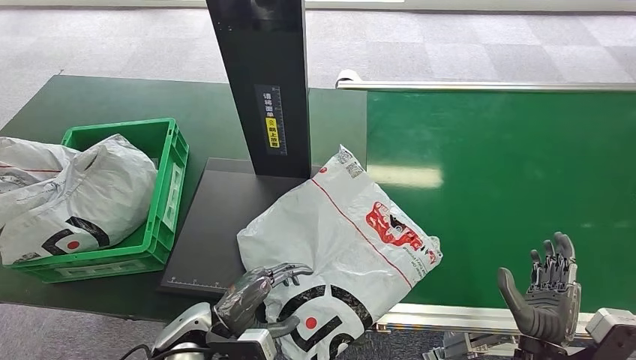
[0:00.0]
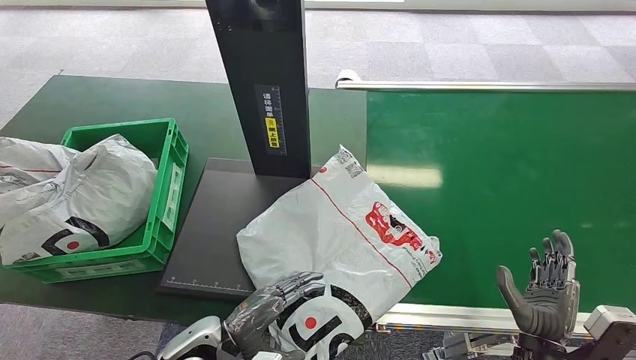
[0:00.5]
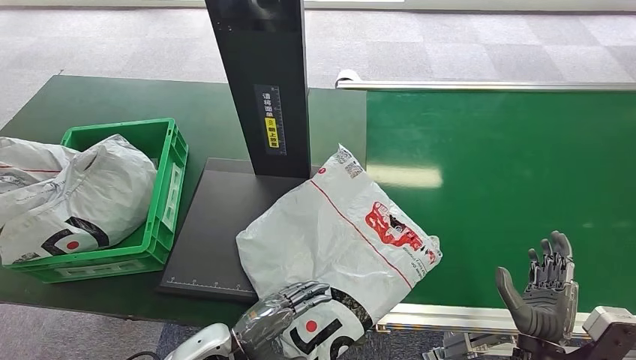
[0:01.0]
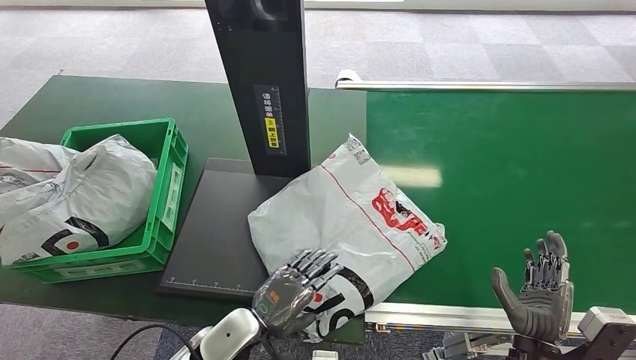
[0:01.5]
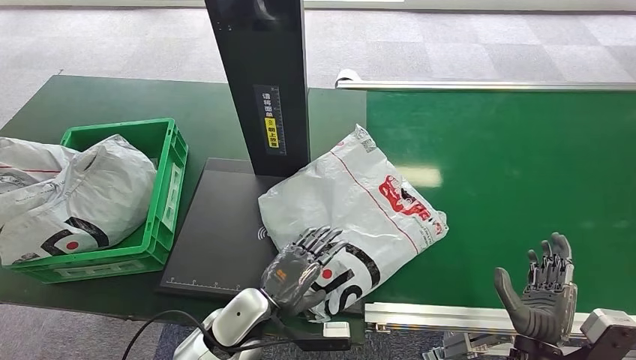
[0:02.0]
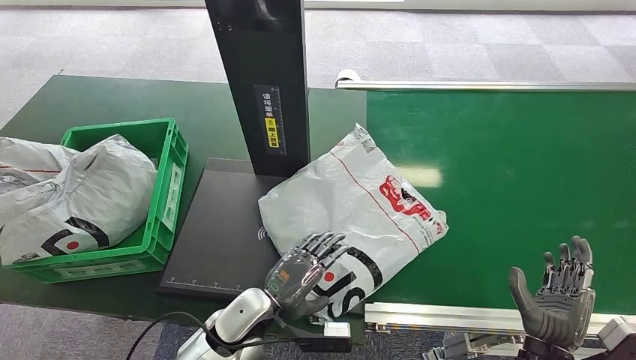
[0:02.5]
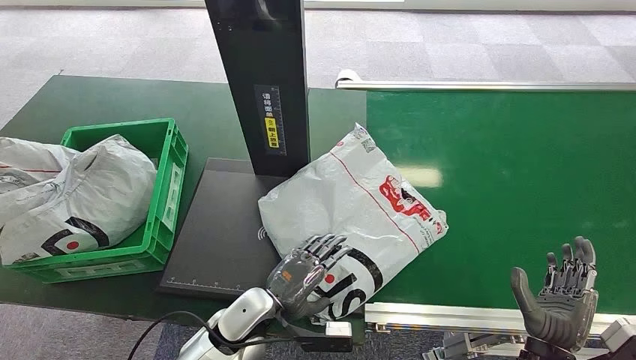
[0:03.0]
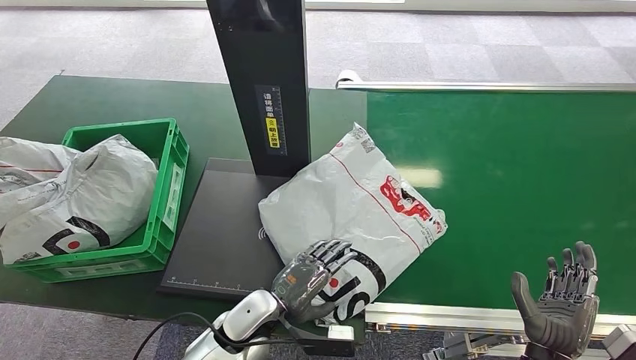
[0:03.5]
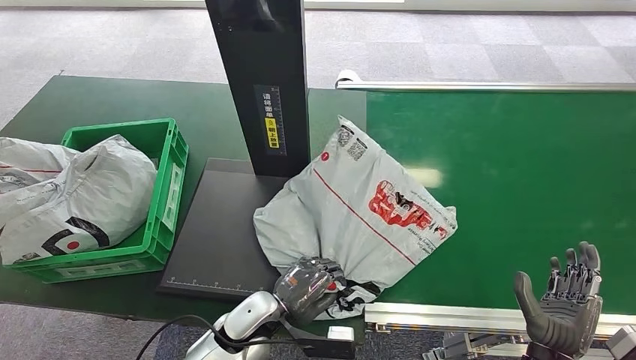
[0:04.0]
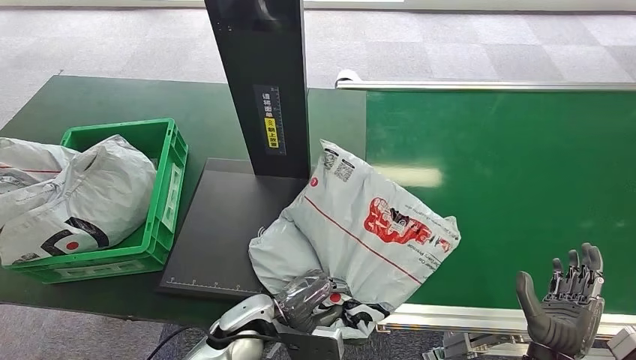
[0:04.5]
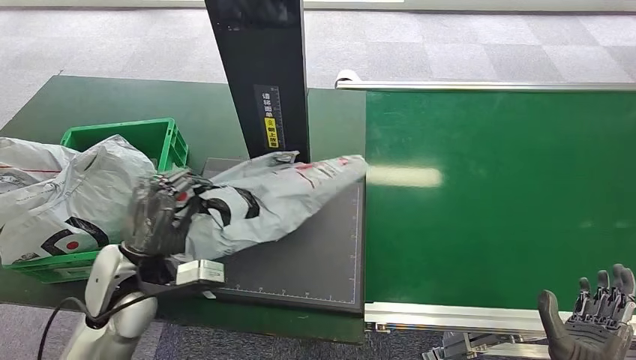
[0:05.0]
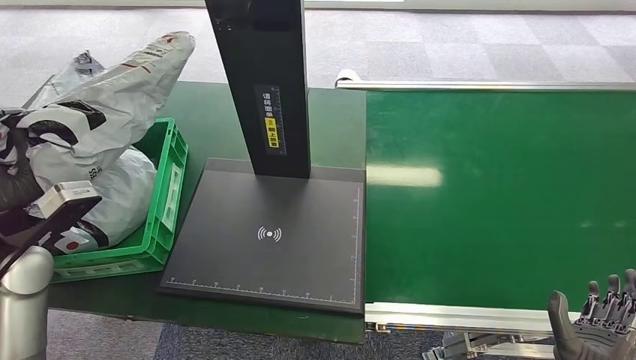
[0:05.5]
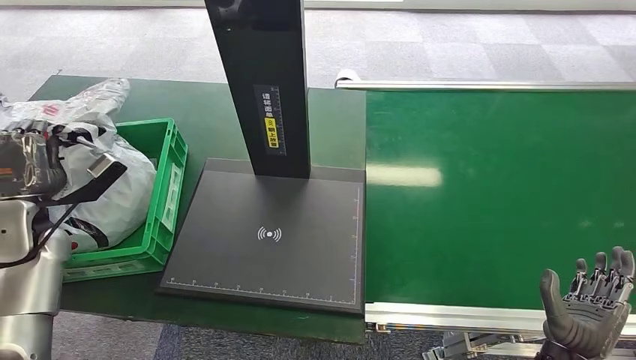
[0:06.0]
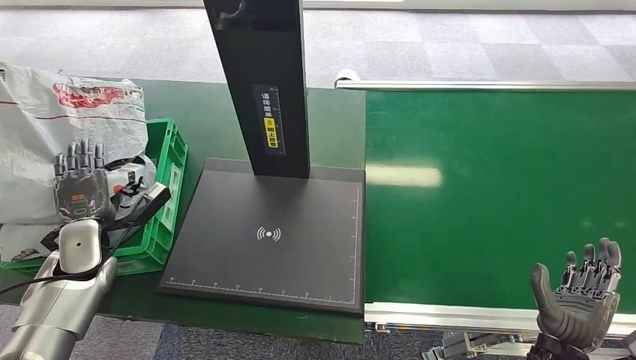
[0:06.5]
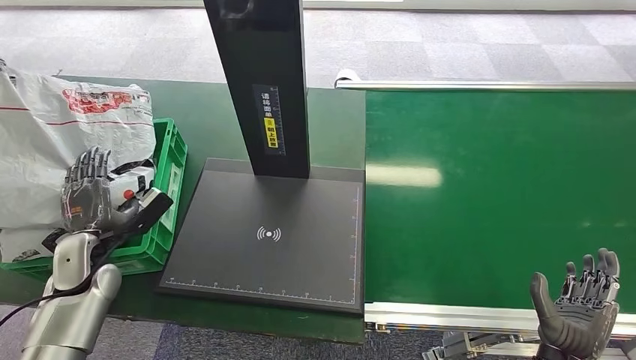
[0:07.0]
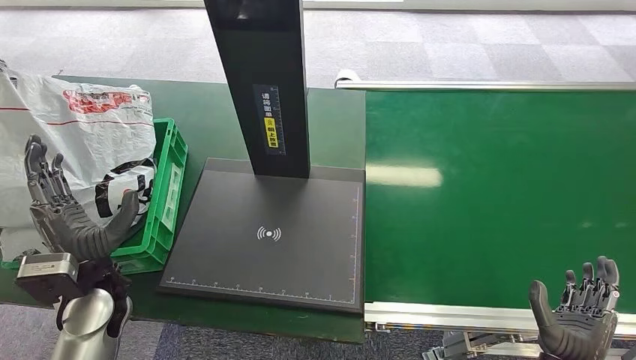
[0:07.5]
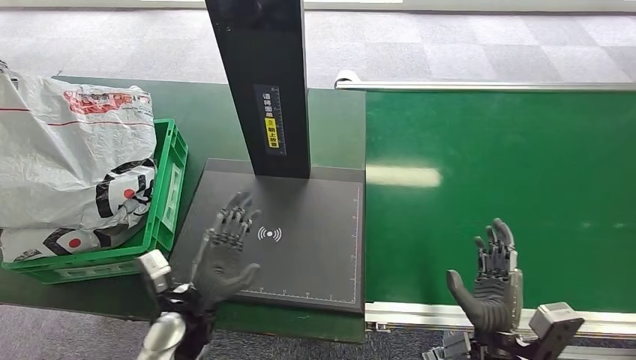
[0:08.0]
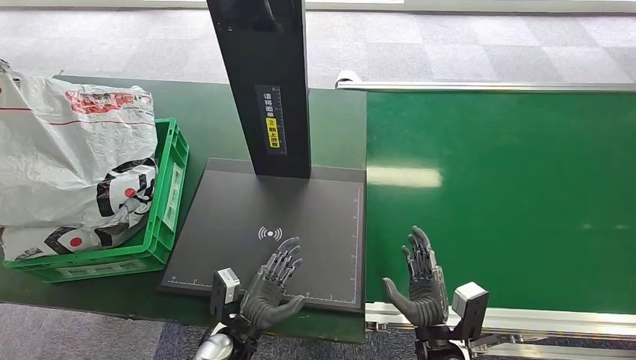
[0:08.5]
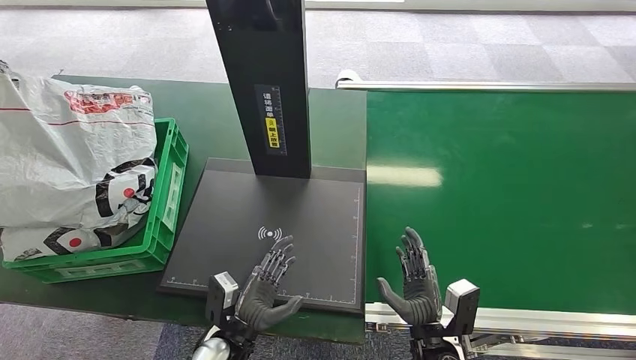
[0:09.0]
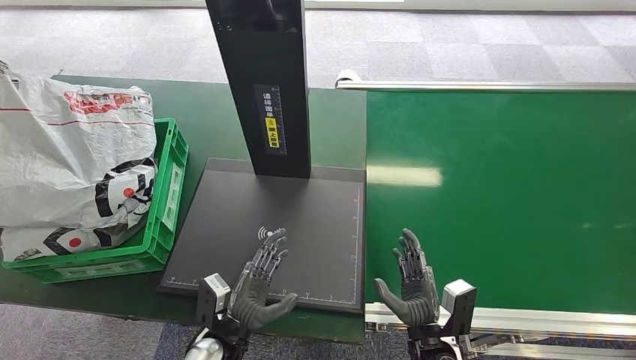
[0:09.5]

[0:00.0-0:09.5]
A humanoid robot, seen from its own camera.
Step, 0:00.0 to 0:05.0: Pick up the package from the inbound machine.
Step, 0:06.5 to 0:09.5: Place the package into the parcel locker.
0:00.0 to 0:02.0: The left hand is displaced to the right by about 10 cm.
0:02.0 to 0:04.0: The hands make only small movements.
0:05.5 to 0:07.5: The left hand moves downward and to the right, approximately 15 cm.
0:07.5 to 0:09.5: The right hand shifts about 15 cm to the left and downward; the left hand shifts some 20 cm to the right and downward.
